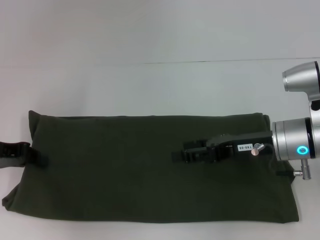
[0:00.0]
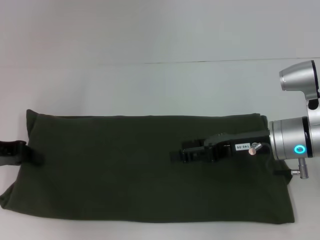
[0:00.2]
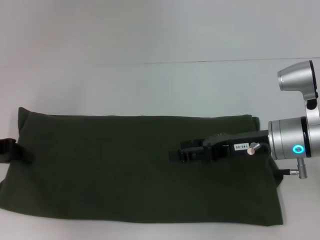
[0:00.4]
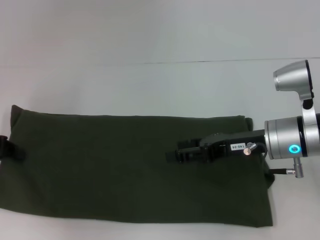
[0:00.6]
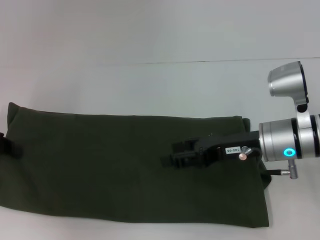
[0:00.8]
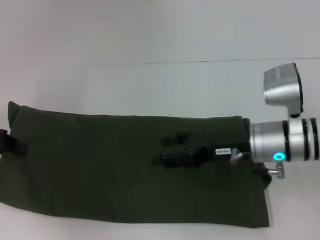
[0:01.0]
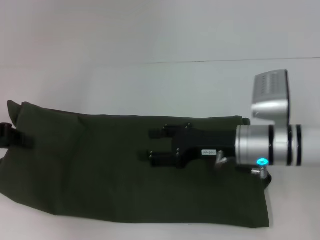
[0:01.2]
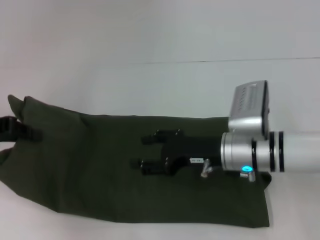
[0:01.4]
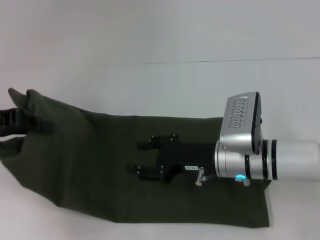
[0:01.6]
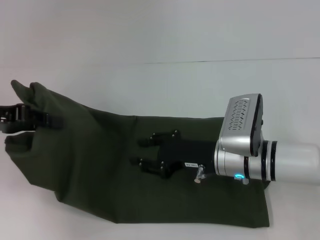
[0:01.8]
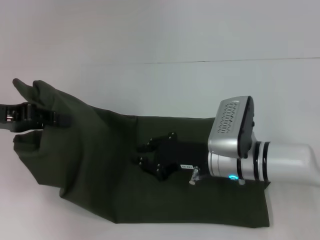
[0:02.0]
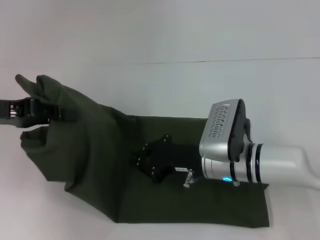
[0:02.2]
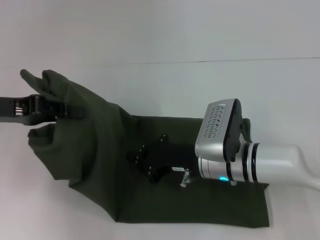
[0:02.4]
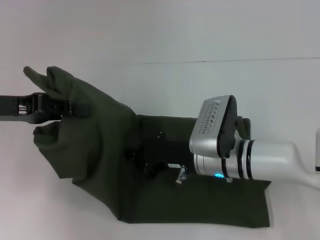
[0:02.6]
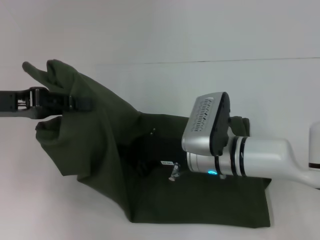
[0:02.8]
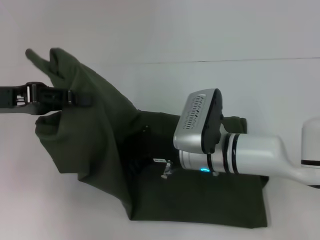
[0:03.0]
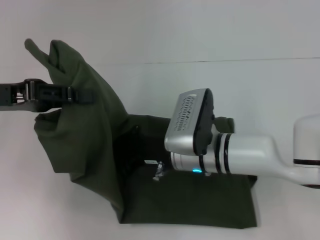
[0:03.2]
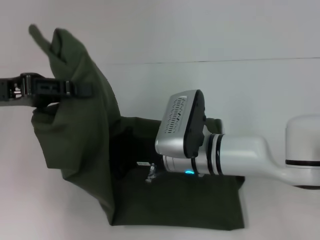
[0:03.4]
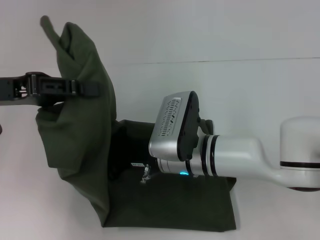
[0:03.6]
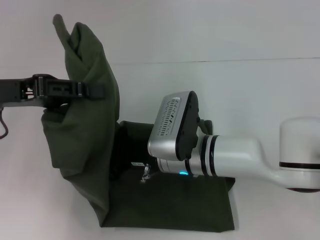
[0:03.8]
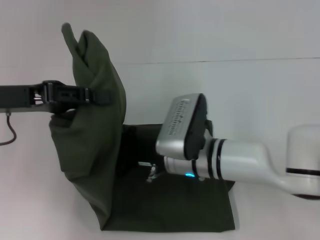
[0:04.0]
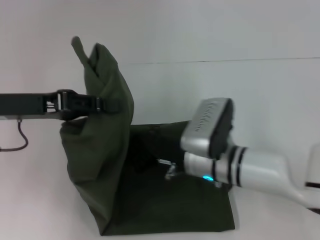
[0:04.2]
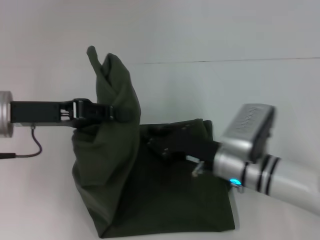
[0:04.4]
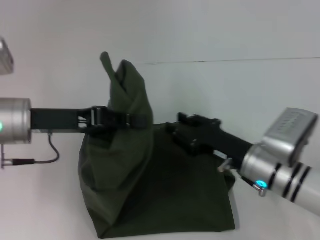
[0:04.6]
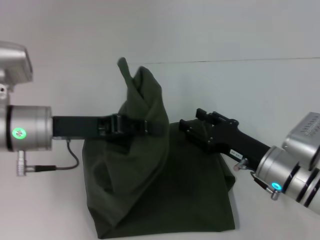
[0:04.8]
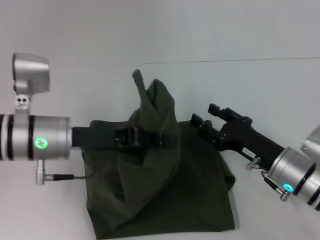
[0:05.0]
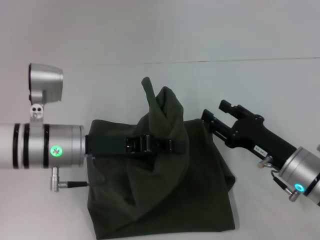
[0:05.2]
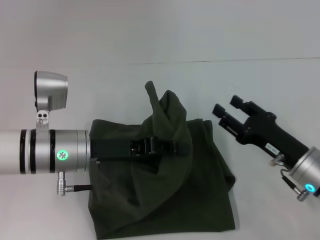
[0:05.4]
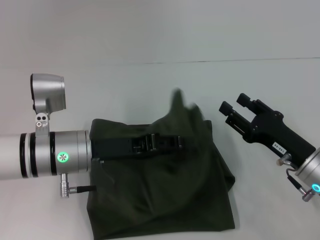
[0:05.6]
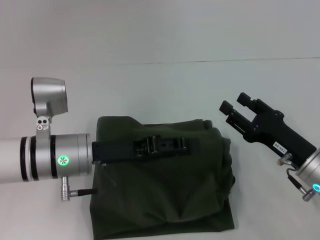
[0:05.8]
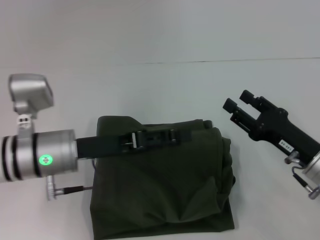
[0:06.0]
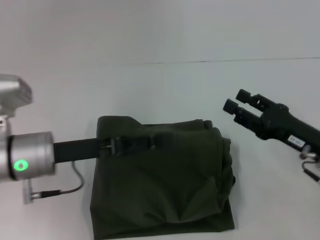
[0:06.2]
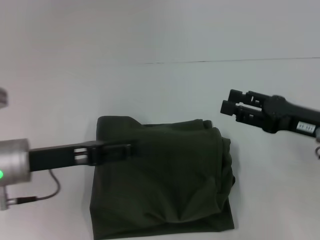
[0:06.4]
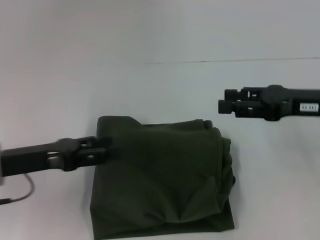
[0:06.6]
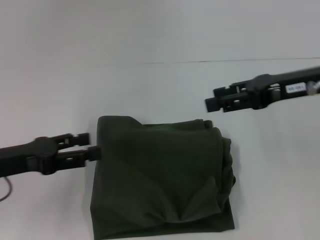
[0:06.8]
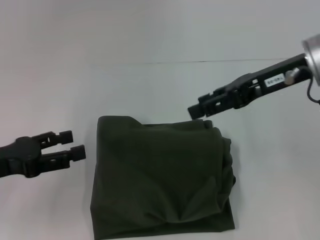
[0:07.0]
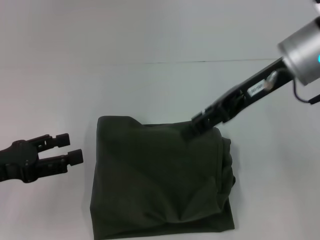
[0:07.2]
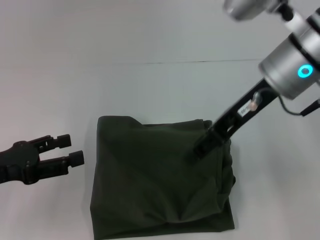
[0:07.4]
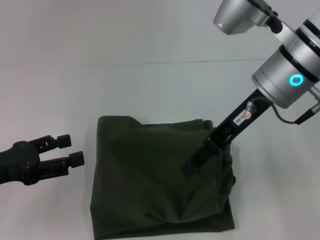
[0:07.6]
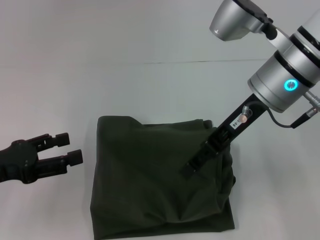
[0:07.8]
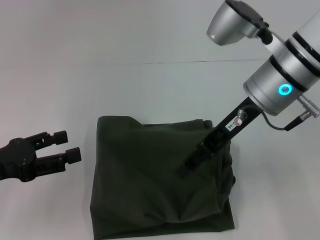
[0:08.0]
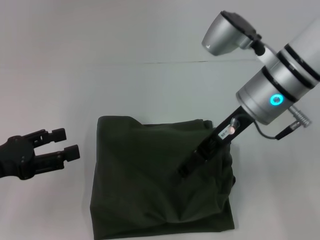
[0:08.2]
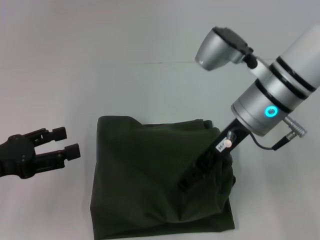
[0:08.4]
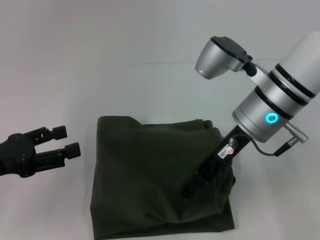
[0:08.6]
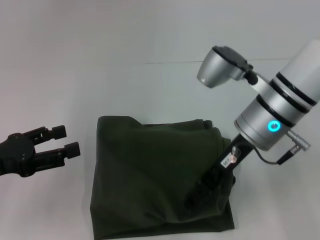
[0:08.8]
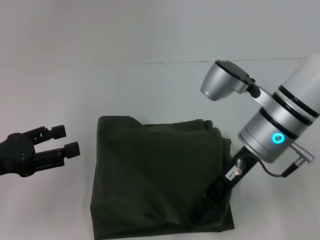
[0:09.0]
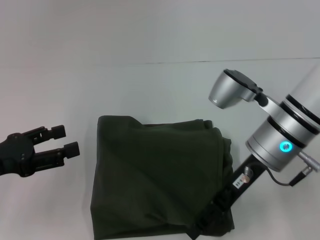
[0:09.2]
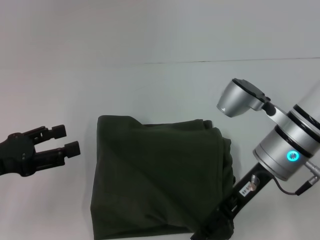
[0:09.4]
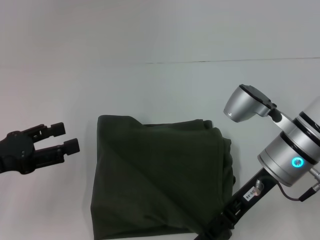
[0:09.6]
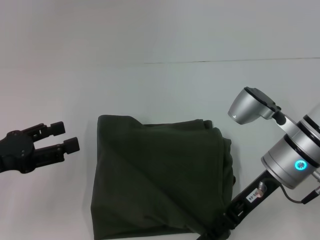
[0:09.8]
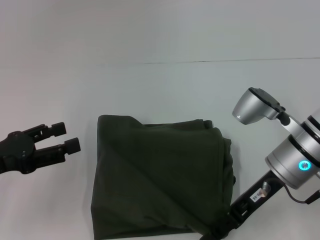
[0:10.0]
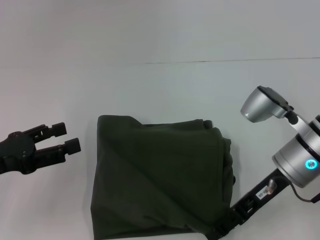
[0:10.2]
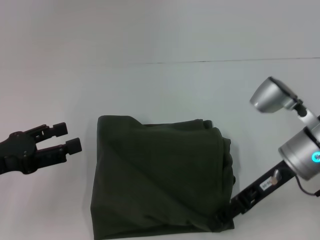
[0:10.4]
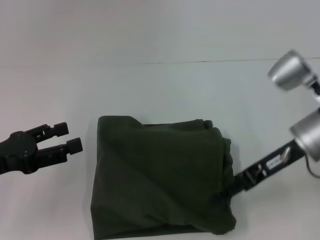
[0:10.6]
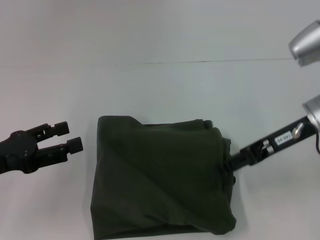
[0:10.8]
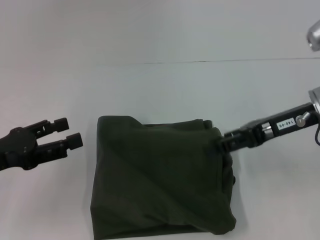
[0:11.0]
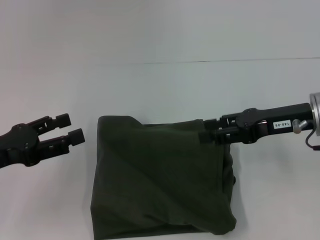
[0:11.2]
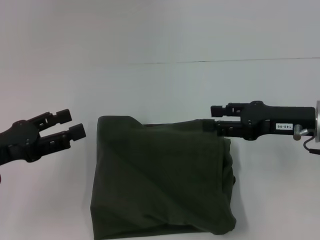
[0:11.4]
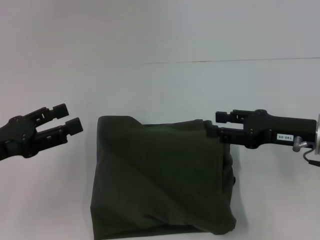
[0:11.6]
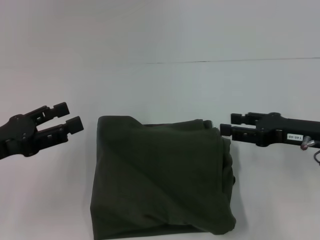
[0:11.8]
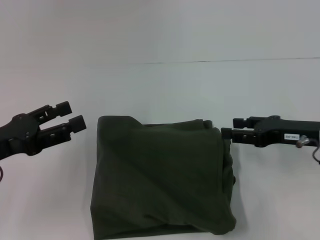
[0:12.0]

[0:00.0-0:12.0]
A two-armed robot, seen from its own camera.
Step, 0:00.0 to 0:05.8: Fold the clothes with your left hand.
0:00.0 to 0:01.6: The right gripper moves to the left, roughly 10 cm.
0:01.6 to 0:03.0: The right gripper heads to the left, covering about 5 cm, and closes its fingers.
0:03.0 to 0:04.4: The right gripper changes place by roughly 5 cm, while the left gripper moves some 5 cm.
0:04.4 to 0:06.0: The left gripper goes approximately 10 cm to the right and downward. The right gripper shifts roughly 10 cm to the right, and opens.
0:06.0 to 0:07.6: The right gripper is displaced upward, to the left and forward by some 25 cm. Meanwhile the left gripper shifts some 15 cm to the left, and opens up.
0:07.6 to 0:09.0: The right gripper is displaced downward by roughly 5 cm.
0:09.0 to 0:10.4: The right gripper shifts about 5 cm to the right.
0:10.4 to 0:12.0: The right gripper heads to the right, covering approximately 5 cm.

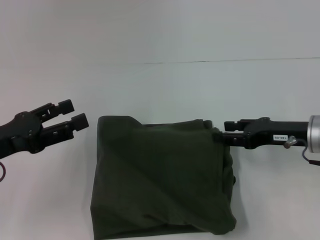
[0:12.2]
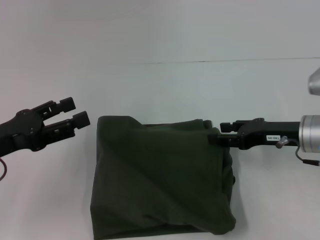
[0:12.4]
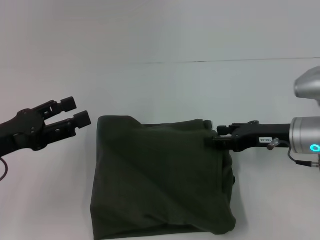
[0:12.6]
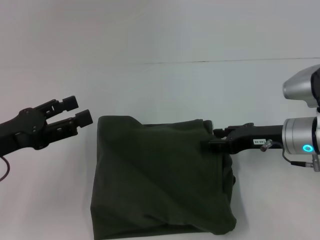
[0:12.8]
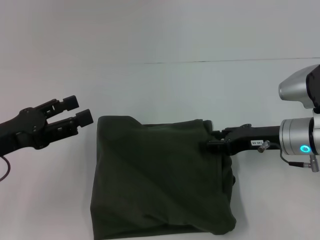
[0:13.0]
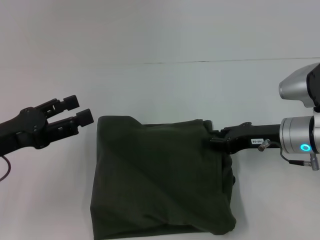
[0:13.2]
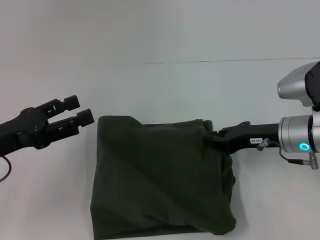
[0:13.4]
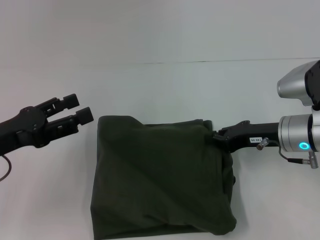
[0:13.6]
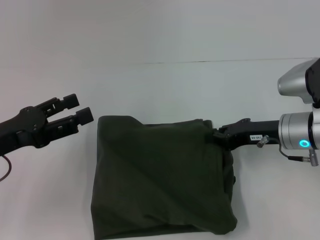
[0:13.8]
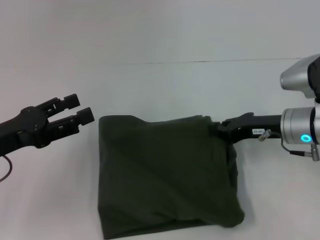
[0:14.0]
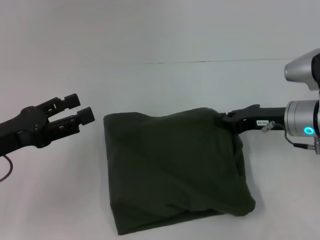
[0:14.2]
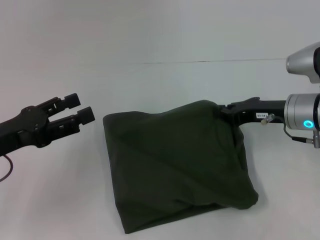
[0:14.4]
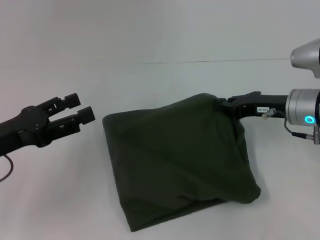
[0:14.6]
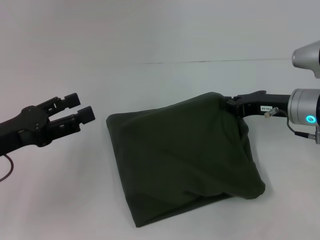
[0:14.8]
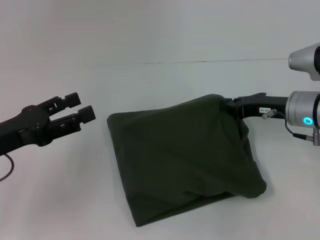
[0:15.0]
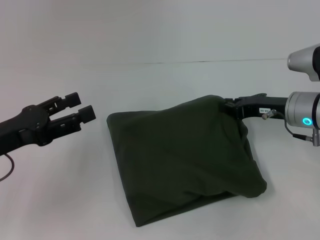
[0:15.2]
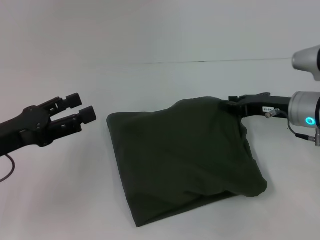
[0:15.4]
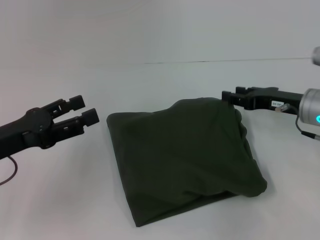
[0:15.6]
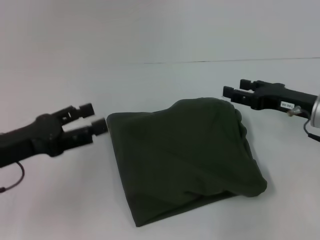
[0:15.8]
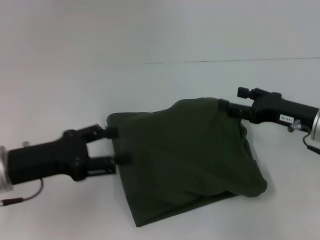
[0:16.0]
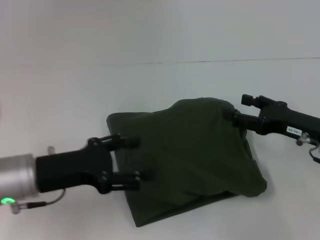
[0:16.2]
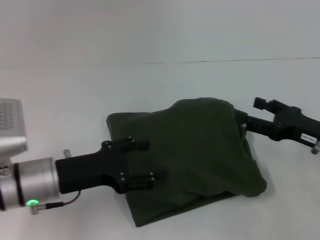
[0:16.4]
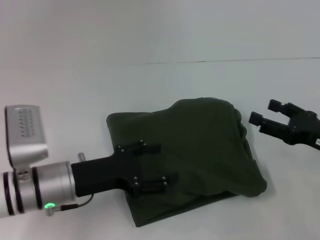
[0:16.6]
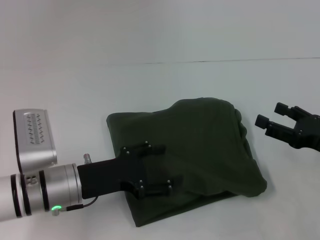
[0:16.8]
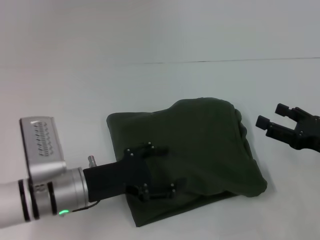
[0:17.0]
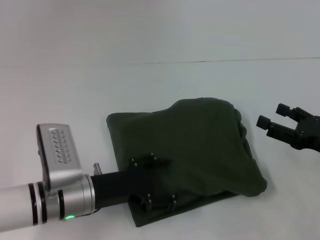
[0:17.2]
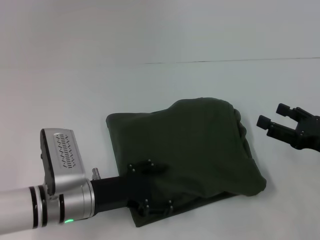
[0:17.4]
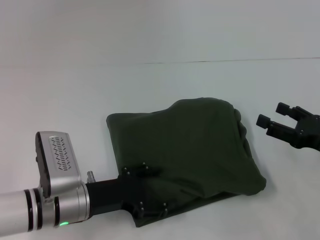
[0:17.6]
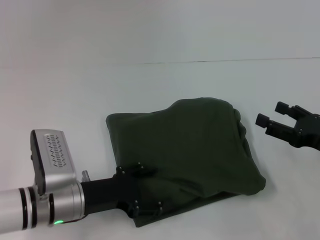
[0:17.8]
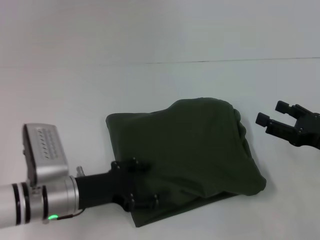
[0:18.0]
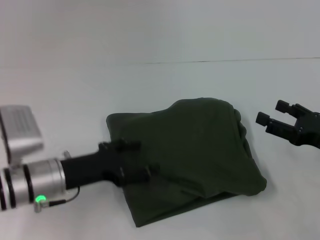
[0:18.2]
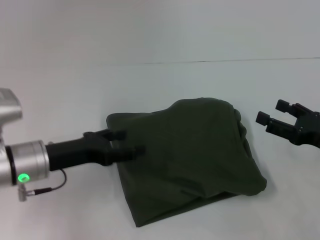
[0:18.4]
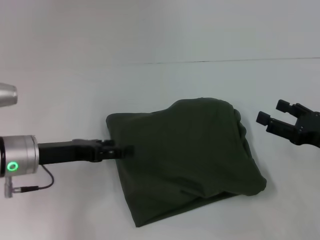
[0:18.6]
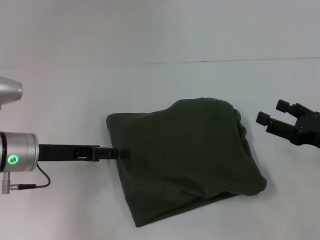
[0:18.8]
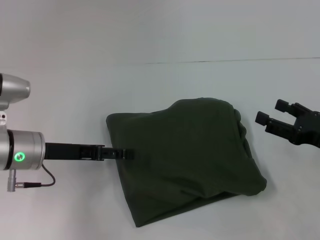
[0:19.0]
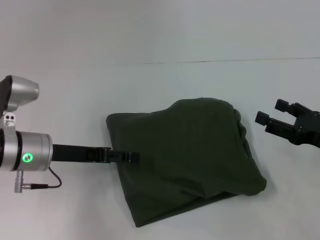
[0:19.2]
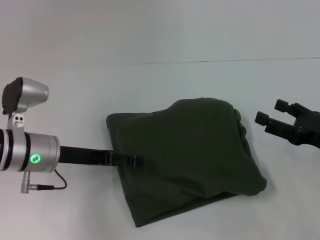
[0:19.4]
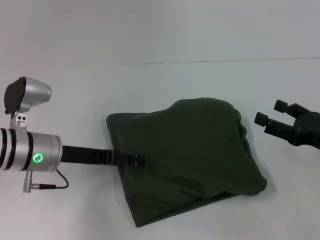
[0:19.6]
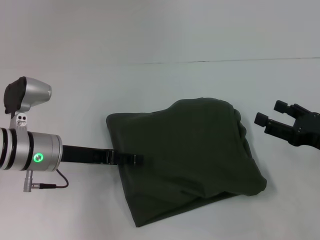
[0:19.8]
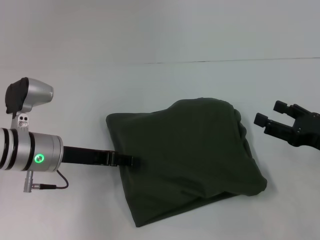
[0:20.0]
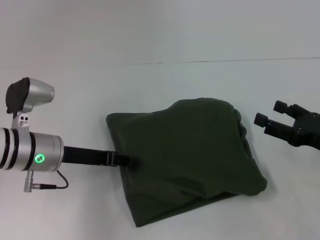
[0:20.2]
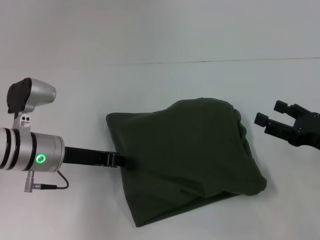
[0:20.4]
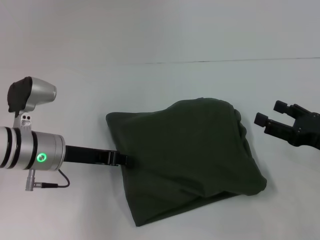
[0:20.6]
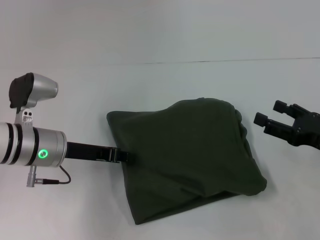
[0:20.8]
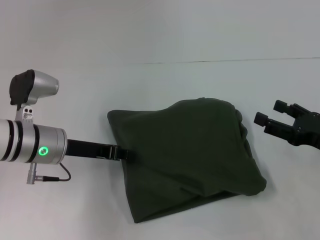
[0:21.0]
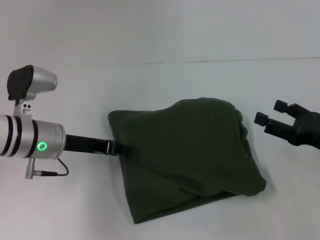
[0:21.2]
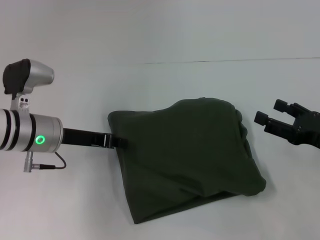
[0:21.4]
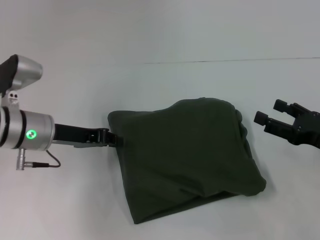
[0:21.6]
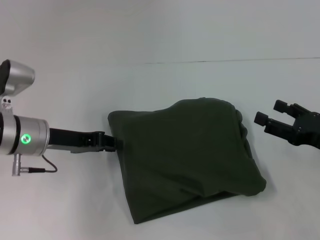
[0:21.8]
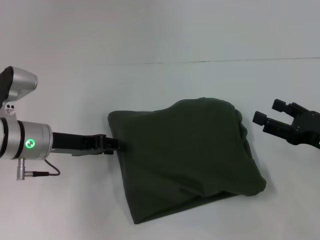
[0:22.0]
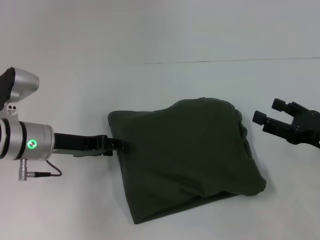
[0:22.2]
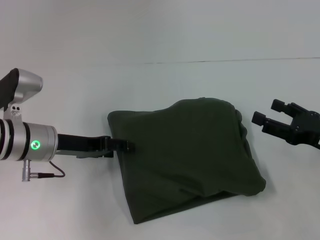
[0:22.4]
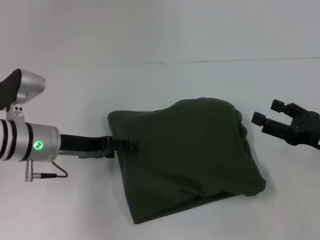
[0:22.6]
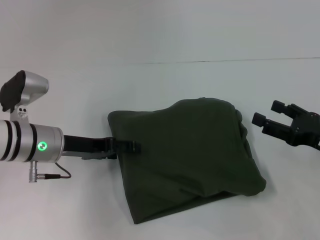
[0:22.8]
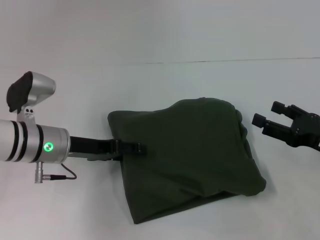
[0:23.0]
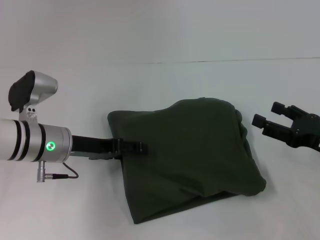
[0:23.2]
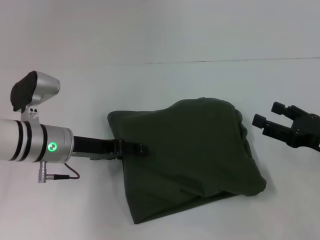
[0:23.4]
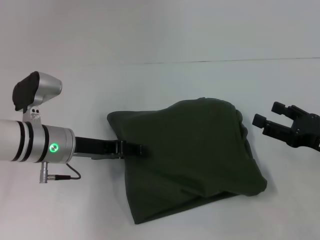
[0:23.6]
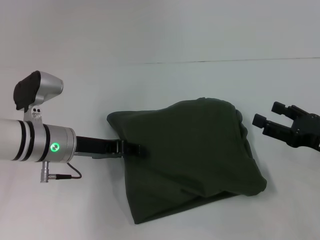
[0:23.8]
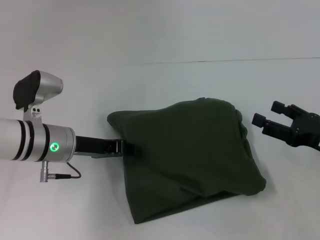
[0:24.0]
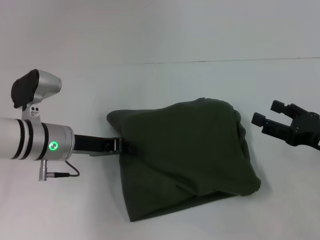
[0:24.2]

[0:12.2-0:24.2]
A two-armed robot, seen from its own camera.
0:12.2 to 0:13.8: The right gripper closes its fingers.
0:15.2 to 0:16.6: The left gripper goes about 10 cm to the right and downward, while the right gripper is displaced backward and to the right by about 10 cm, and opens.
0:16.6 to 0:18.2: There are only small adjustments of the grippers.
0:18.2 to 0:19.8: The left gripper heads forward, covering approximately 5 cm.
0:19.8 to 0:21.2: The left gripper closes.
0:21.2 to 0:22.6: The left gripper opens its fingers.
0:22.6 to 0:24.2: The left gripper closes its fingers.
